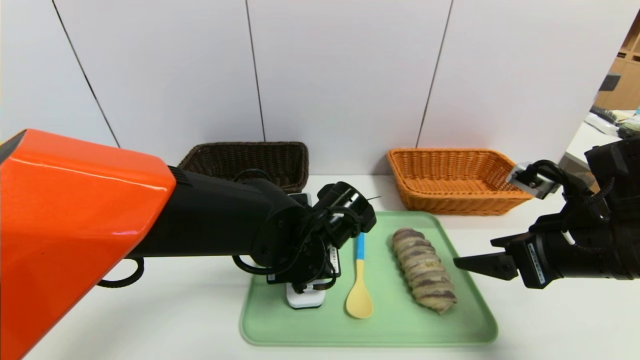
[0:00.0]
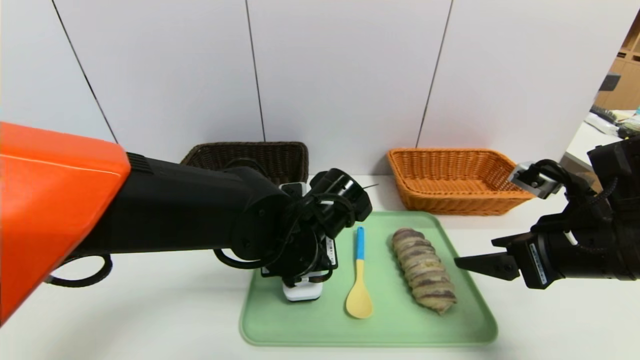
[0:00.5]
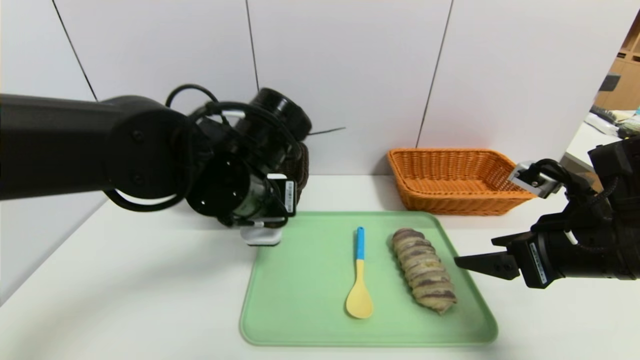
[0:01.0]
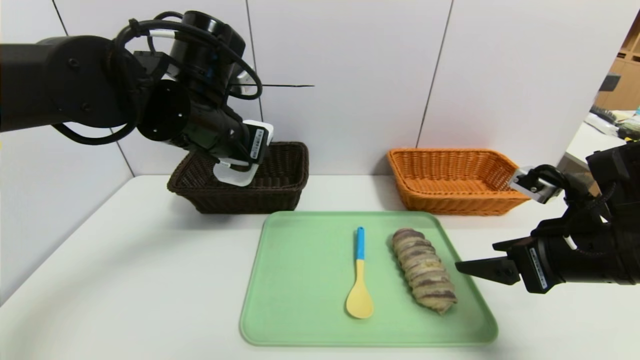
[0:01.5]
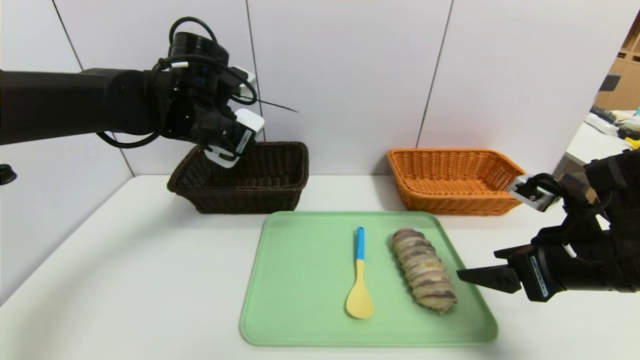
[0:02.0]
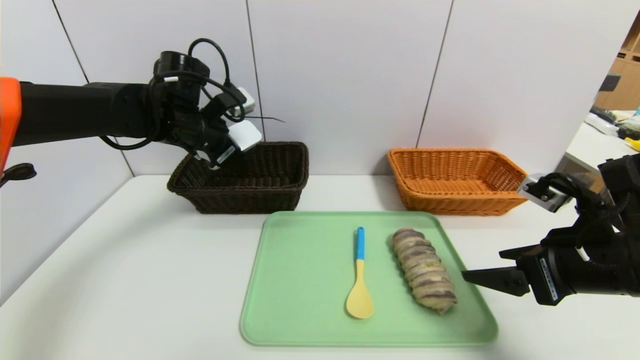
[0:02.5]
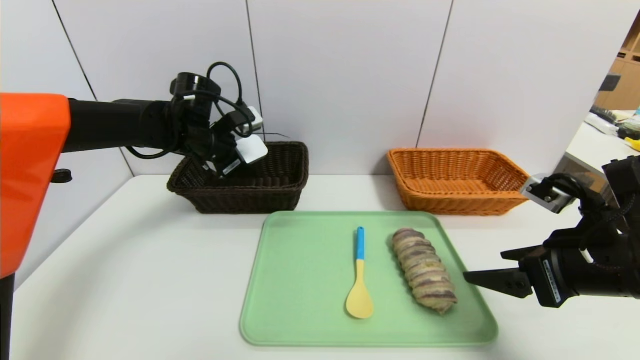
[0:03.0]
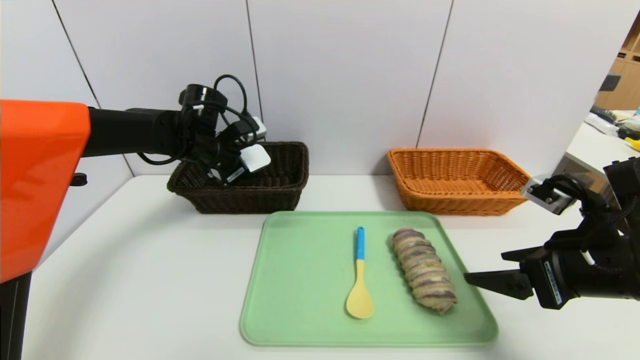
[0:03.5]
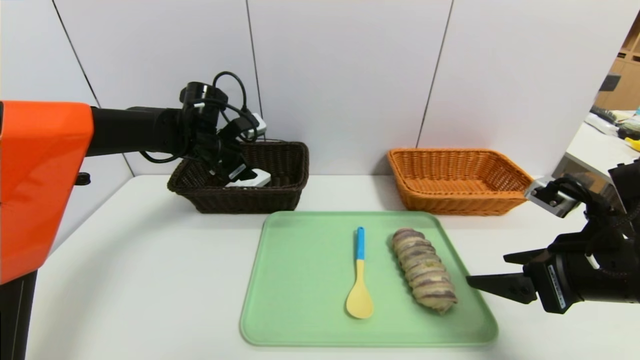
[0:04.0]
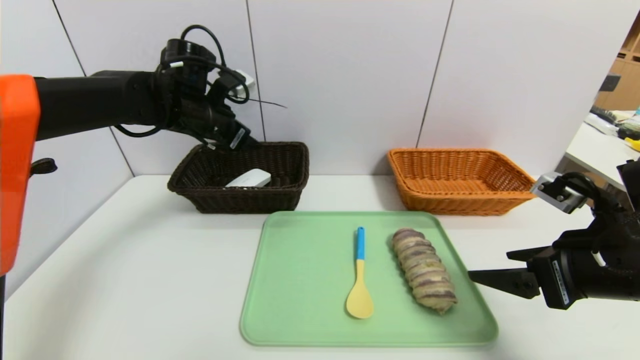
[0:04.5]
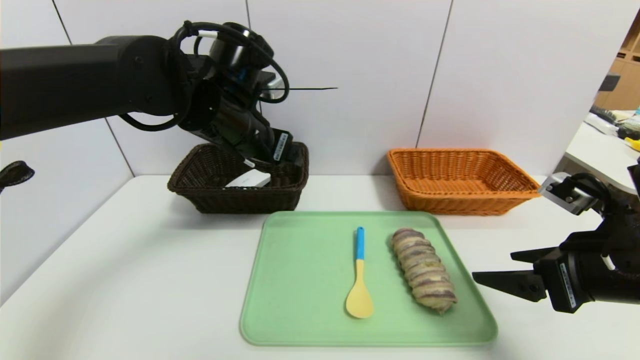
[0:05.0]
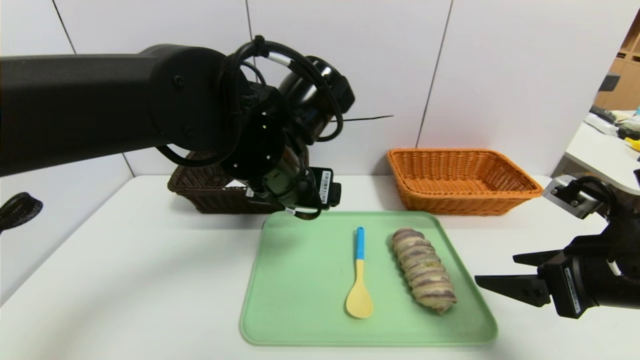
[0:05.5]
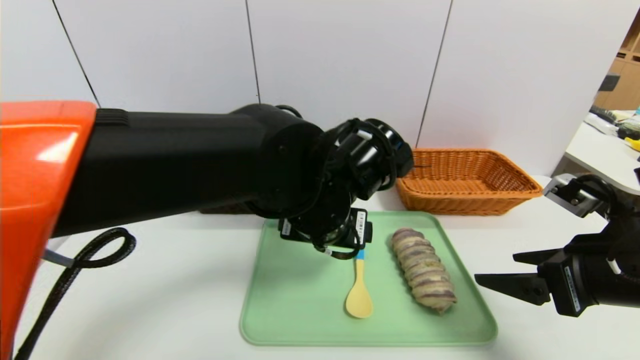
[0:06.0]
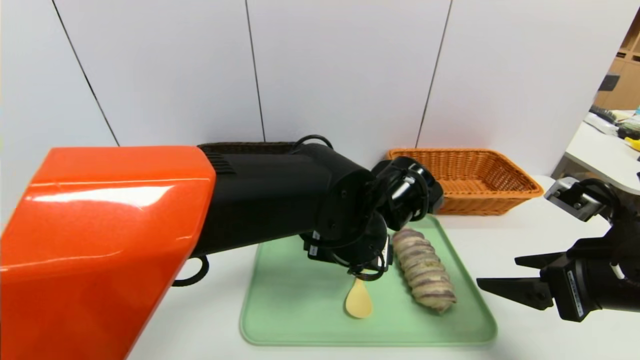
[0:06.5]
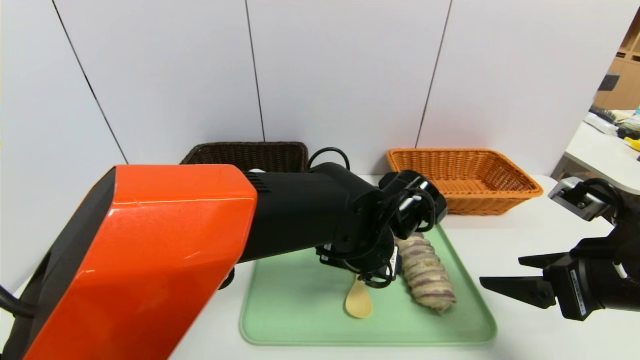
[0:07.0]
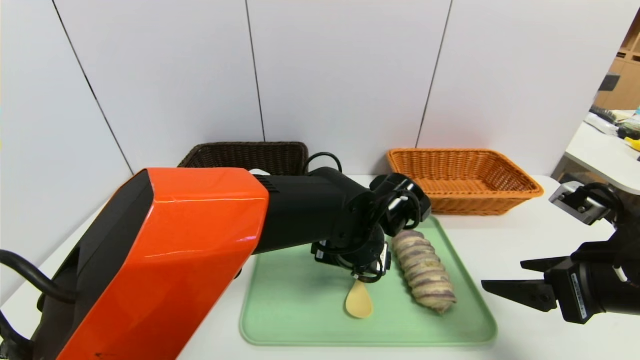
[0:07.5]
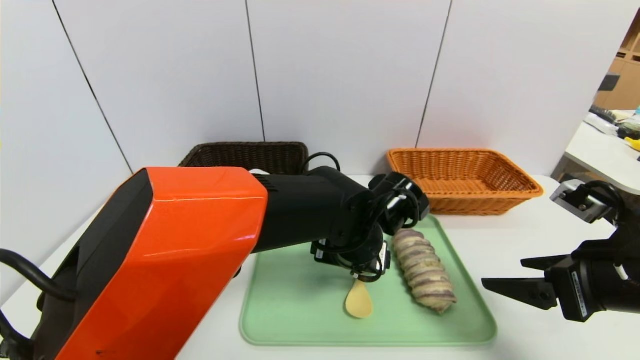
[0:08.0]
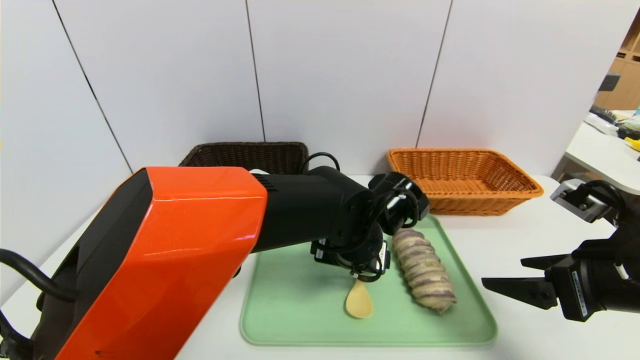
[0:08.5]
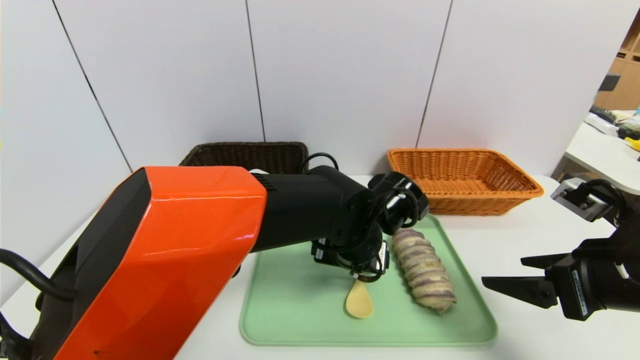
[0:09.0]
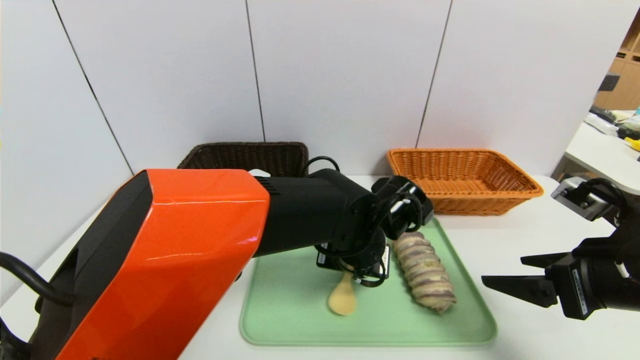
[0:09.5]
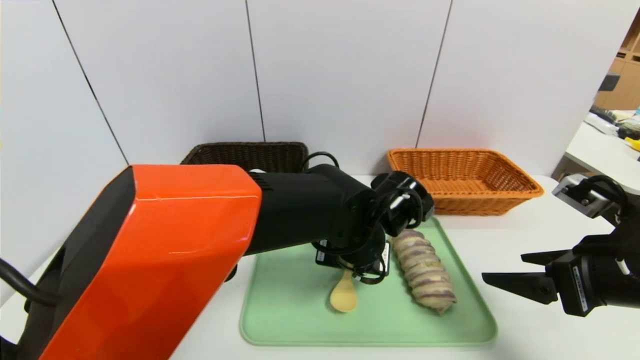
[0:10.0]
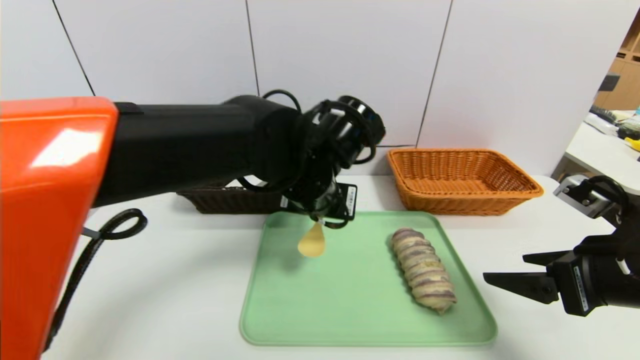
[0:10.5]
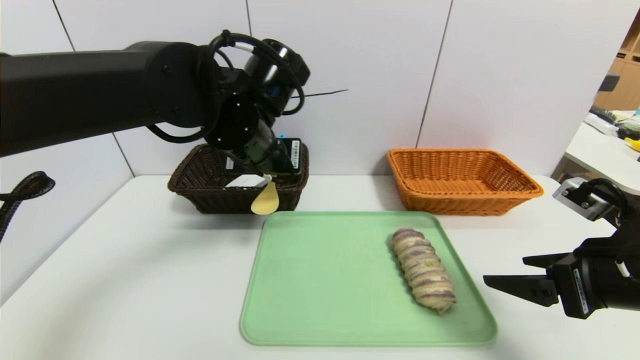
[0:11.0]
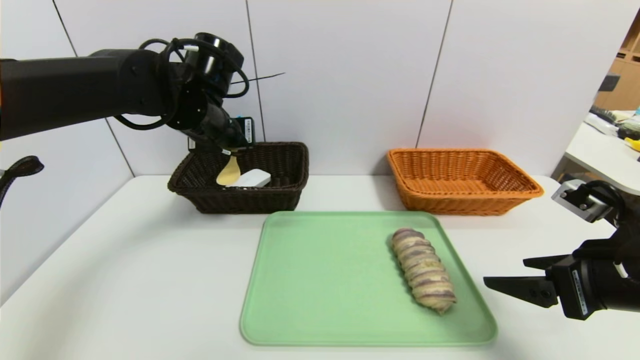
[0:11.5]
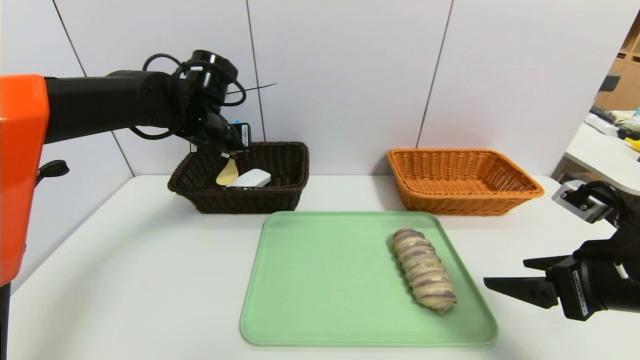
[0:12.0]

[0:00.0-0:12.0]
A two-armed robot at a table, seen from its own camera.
Task of the whole recording: place the food in the right basket with the right gripper, and place the non food items in the left basket with the left gripper.
Step, 0:00.0 to 0:04.0: Grasp the white eraser and put it in the left basket.
0:00.0 to 0:02.0: The left gripper travels to the left, upward and forward by some 25 cm.
0:02.0 to 0:04.0: The left gripper moves forward and downward, some 10 cm.
0:04.0 to 0:06.0: The left gripper moves to the right and backward, approximately 30 cm.
0:06.0 to 0:08.0: The left gripper moves downward, roughly 10 cm.
0:08.0 to 0:10.0: The left gripper closes its fingers.
0:10.0 to 0:12.0: The left gripper moves to the left, forward and upward, approximately 30 cm.

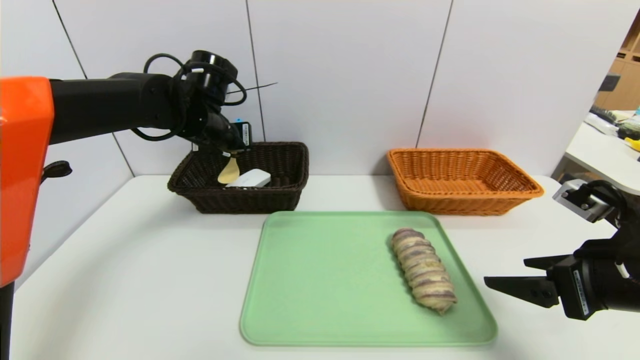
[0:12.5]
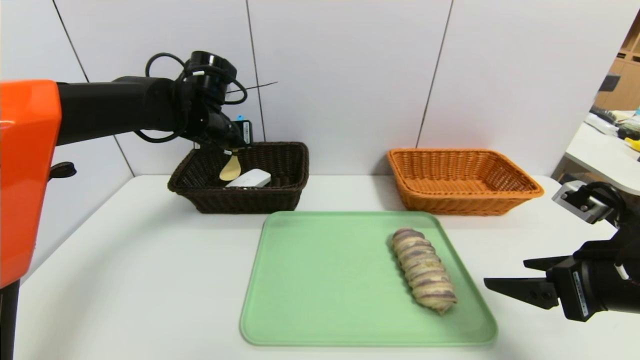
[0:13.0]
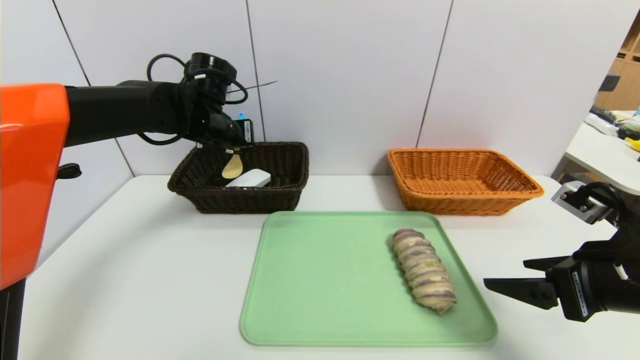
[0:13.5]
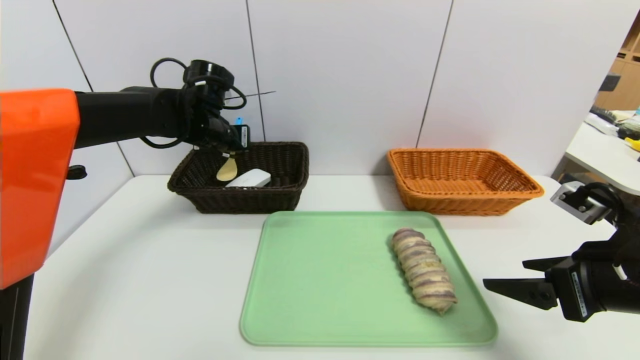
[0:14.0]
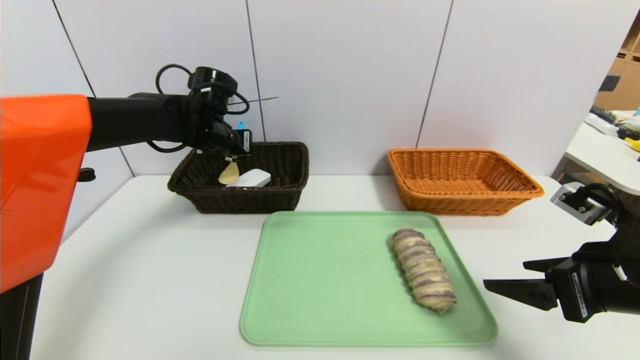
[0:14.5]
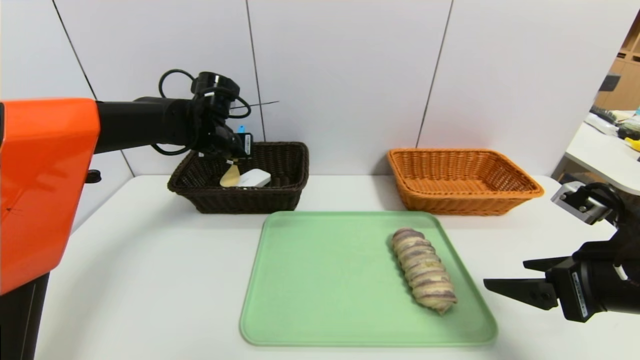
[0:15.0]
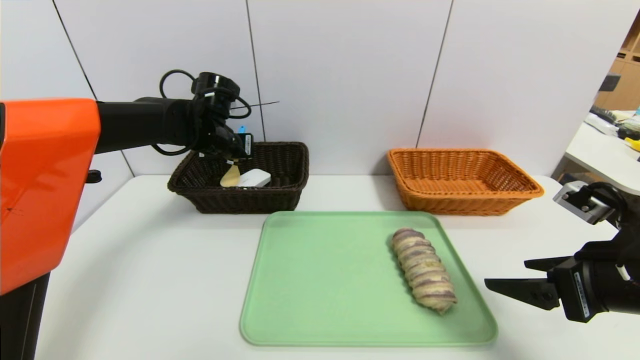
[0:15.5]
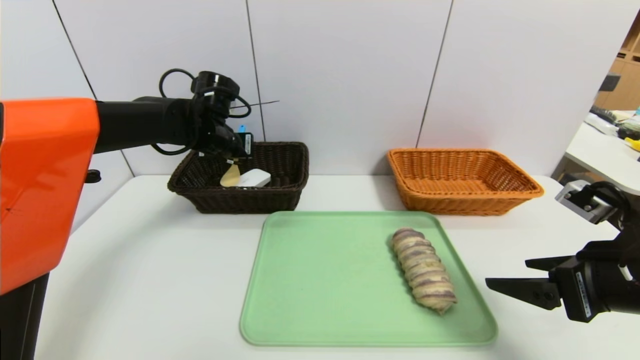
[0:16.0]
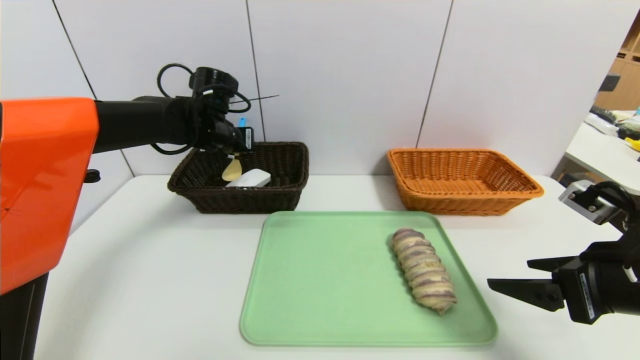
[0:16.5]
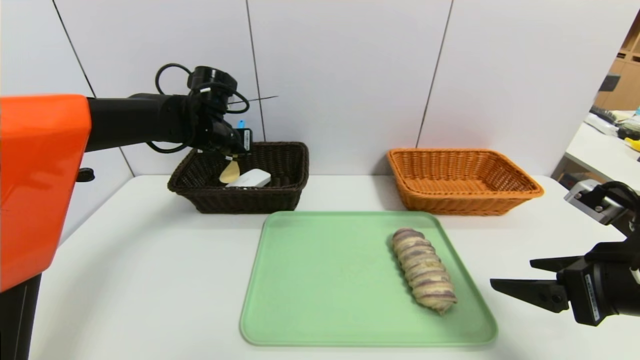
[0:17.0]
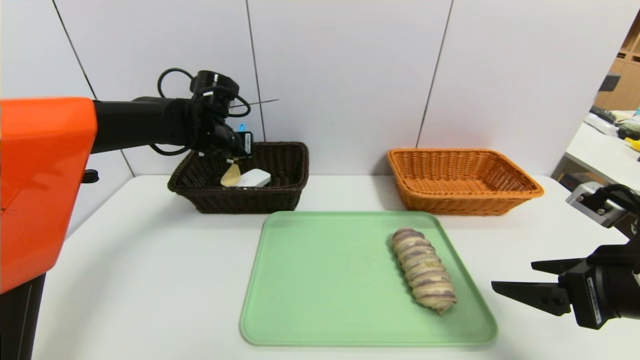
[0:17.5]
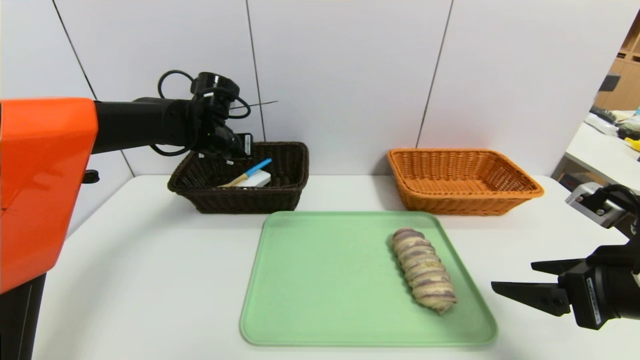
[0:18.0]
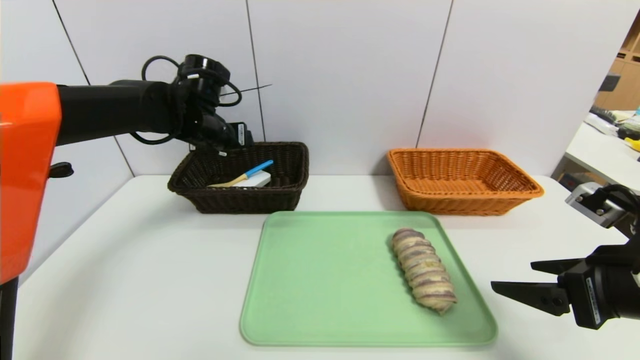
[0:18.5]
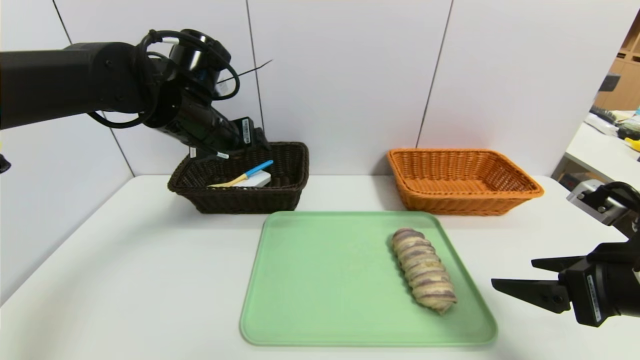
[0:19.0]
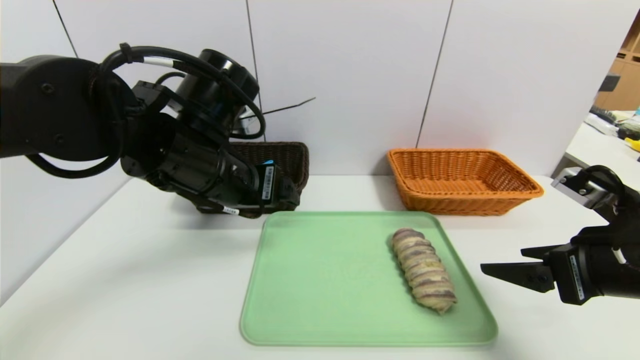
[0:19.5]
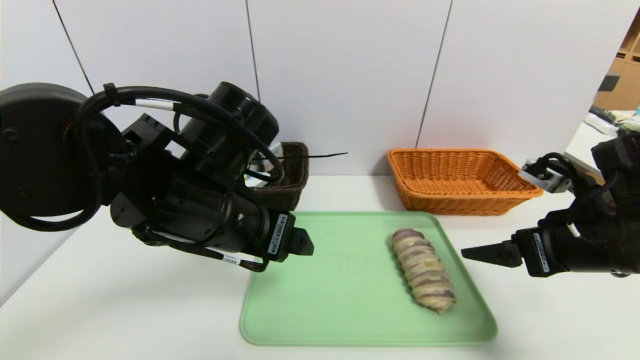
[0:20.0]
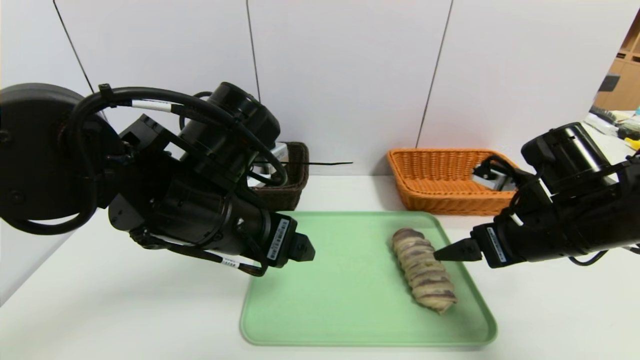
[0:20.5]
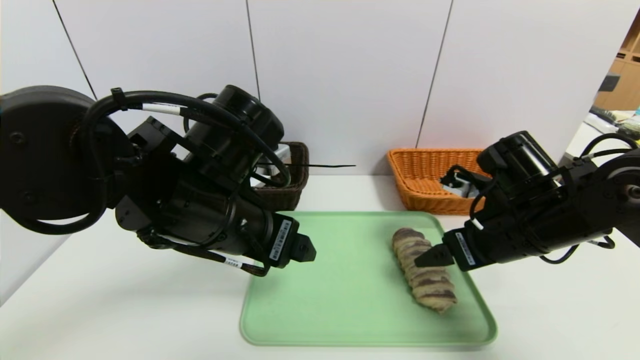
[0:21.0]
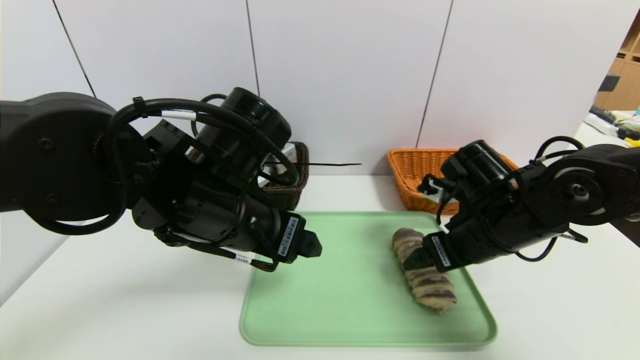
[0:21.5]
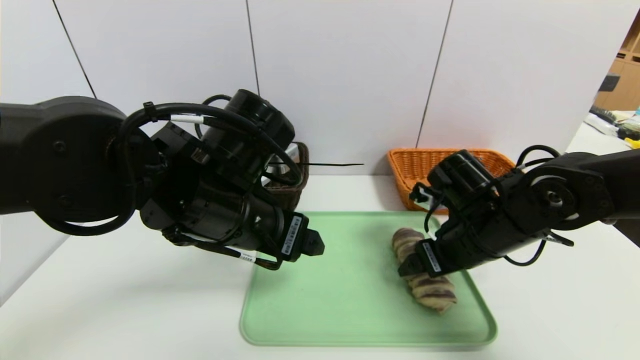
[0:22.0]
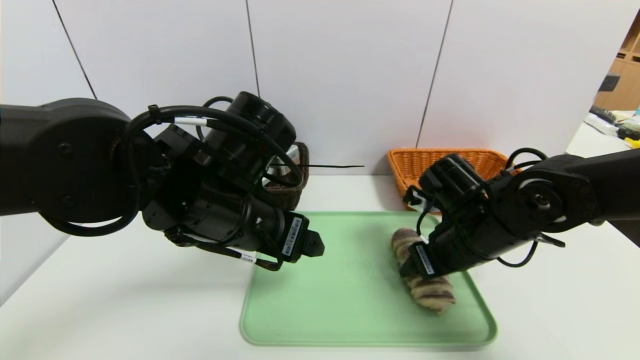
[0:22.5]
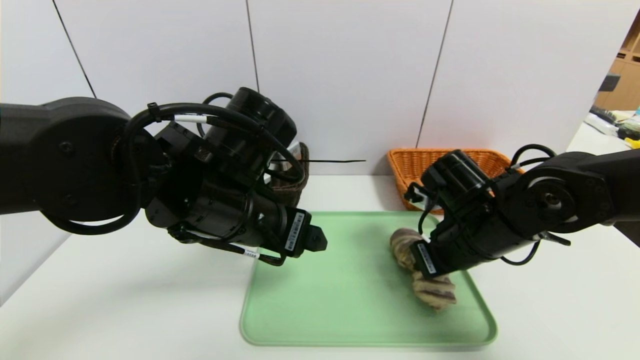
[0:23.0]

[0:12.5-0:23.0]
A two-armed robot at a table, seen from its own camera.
Task of the whole recording: place the food in the right basket with the right gripper, and place the non food items in the left basket with the left gripper.
Step, 0:12.5 to 0:18.0: Grasp the spoon and put it in the left basket.
0:12.5 to 0:14.5: The grippers stay close to where they were, moving slightly.
0:14.5 to 0:16.5: The two grippers keep their place.
0:16.5 to 0:19.0: The left gripper moves backward, some 10 cm, and opens.
0:19.0 to 0:21.0: The right gripper shifts about 15 cm forward and to the left; the left gripper shifts approximately 15 cm backward and to the right.
0:21.0 to 0:23.0: The right gripper closes its fingers.
